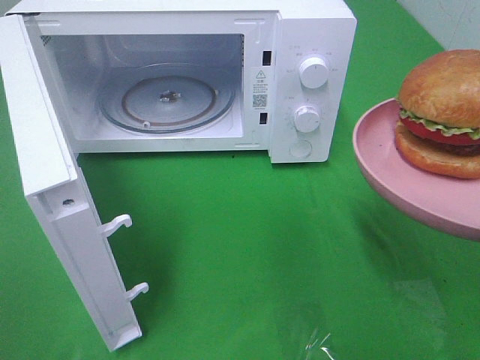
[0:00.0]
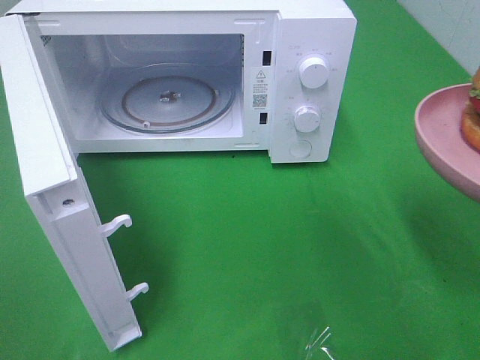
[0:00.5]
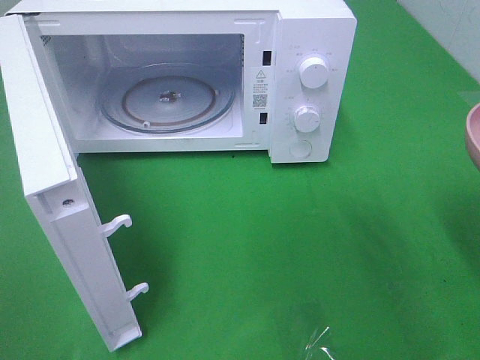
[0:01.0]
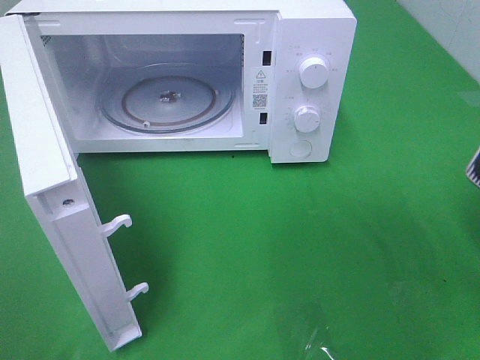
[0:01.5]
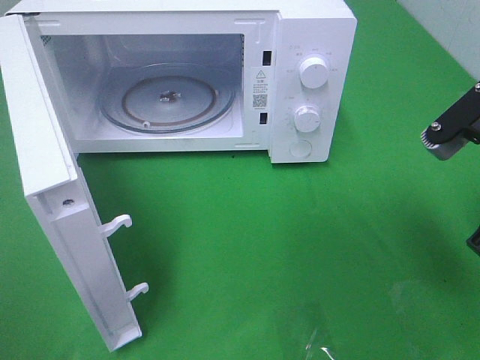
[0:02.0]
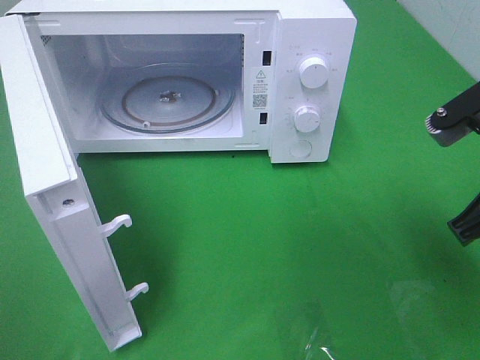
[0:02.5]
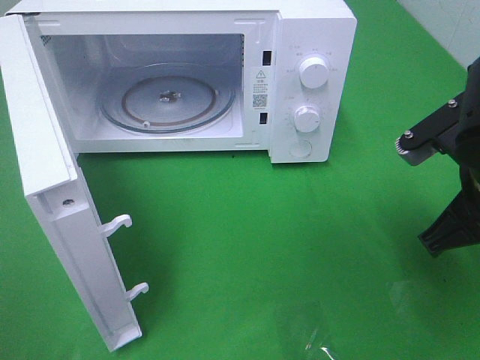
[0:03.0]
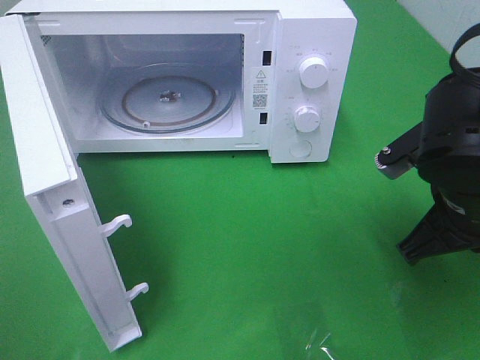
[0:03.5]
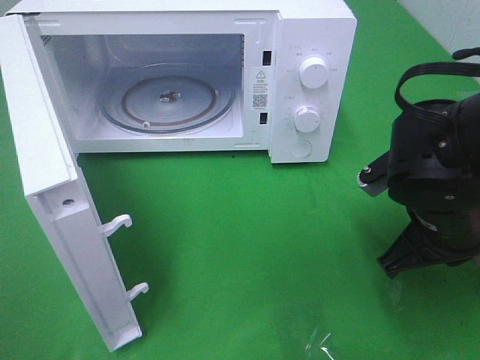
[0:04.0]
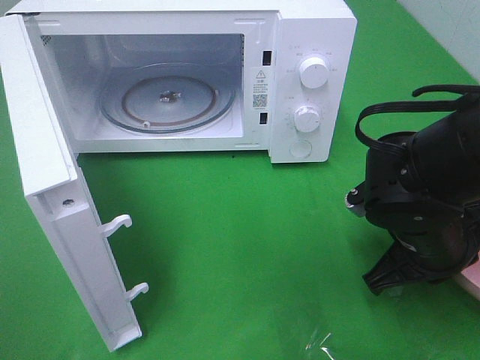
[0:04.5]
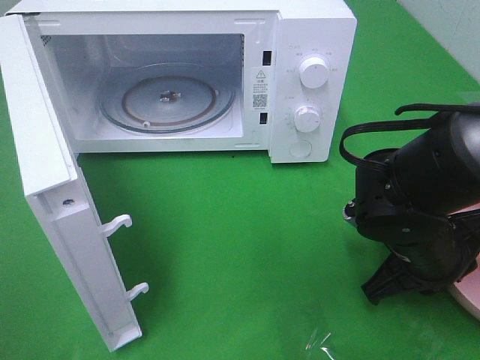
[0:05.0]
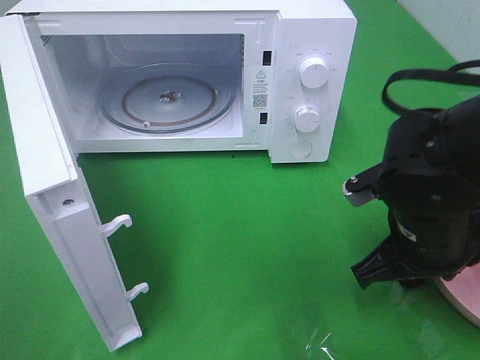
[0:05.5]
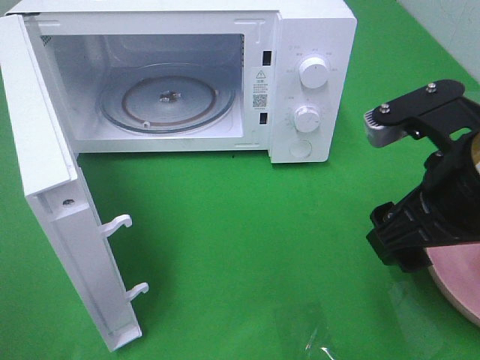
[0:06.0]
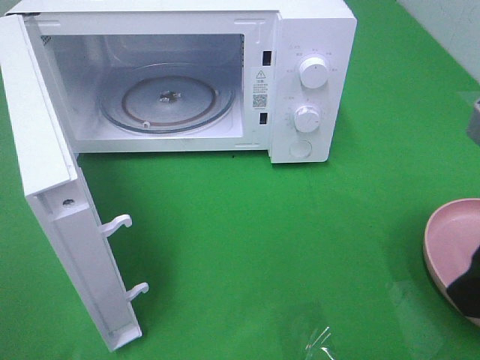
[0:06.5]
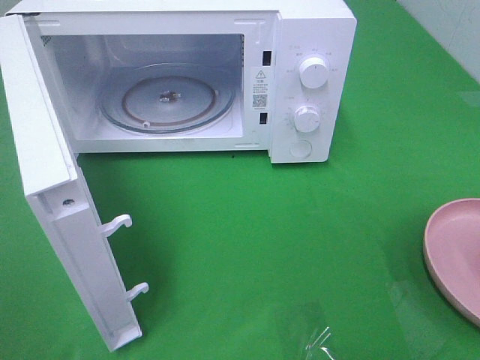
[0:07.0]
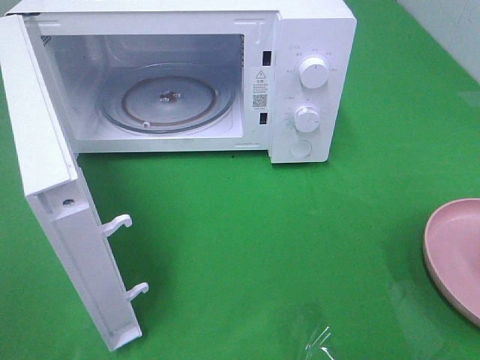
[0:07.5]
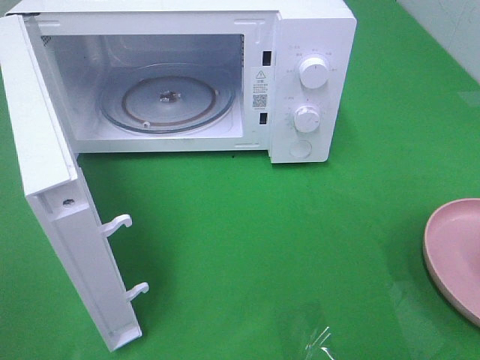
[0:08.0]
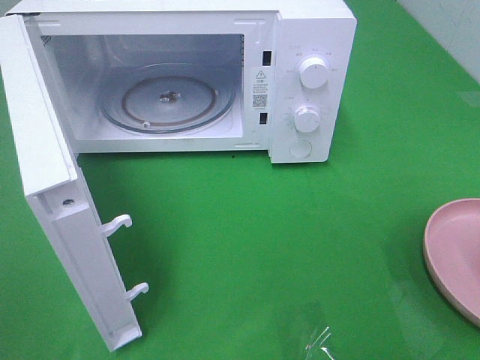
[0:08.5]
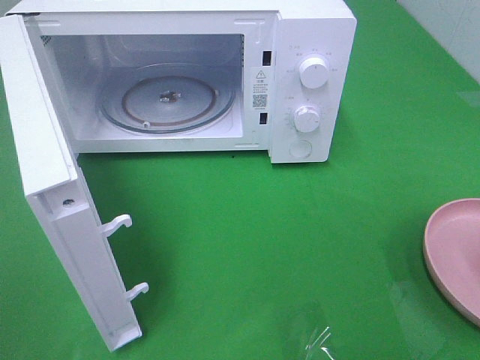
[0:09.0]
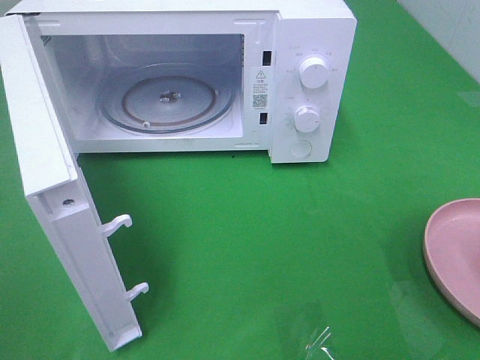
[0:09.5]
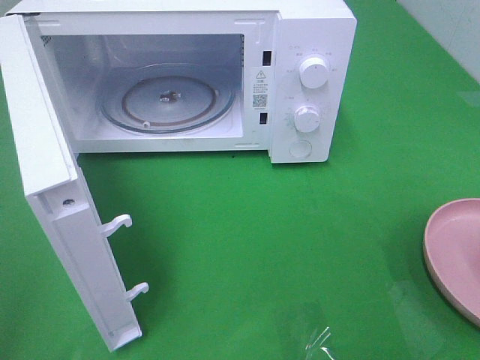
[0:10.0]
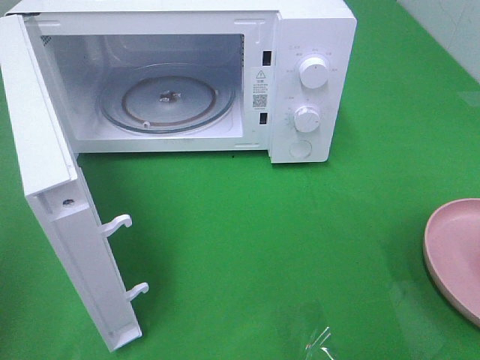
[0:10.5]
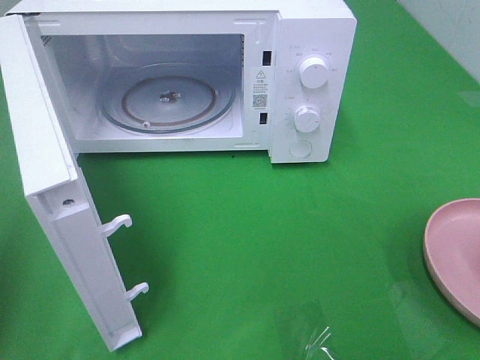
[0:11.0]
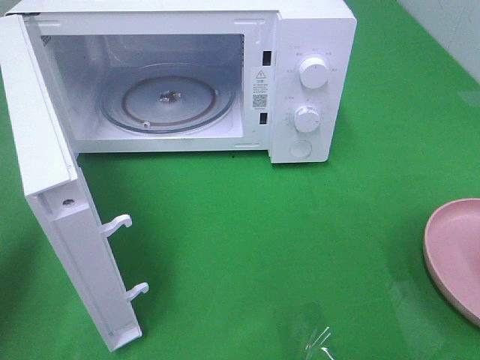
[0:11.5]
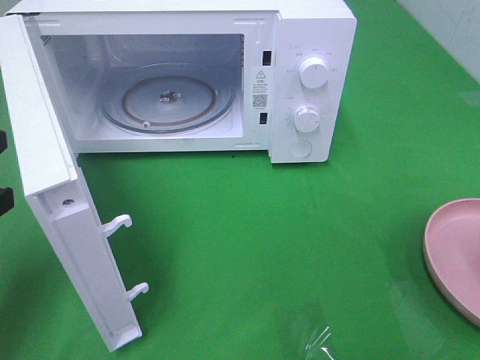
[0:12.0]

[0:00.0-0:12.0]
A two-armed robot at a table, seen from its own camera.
Task of the whole recording: Heat the burger.
Step, 0:00.0 to 0:06.0: Right hand: place the plate on the table.
0:00.0 to 0:02.0: The right gripper heads forward, covering roughly 10 cm.
0:02.0 to 0:04.0: The right gripper moves downward, roughly 10 cm.
0:04.0 to 0:06.0: The right gripper goes about 10 cm upward, and opens its fingers.
0:06.0 to 0:08.0: The right gripper shifts about 20 cm backward and to the right.
0:10.0 to 0:12.0: The left gripper travels forward and downward by approximately 20 cm, and closes.

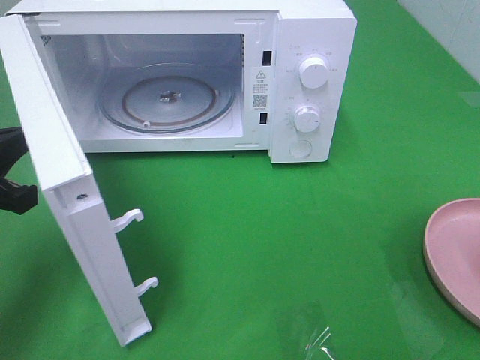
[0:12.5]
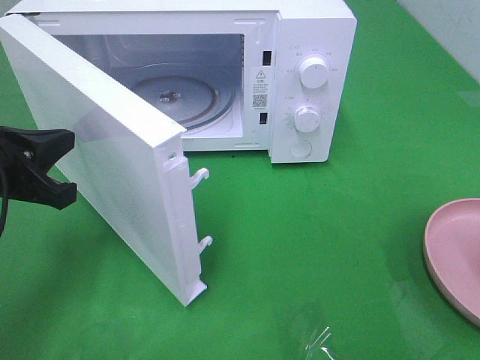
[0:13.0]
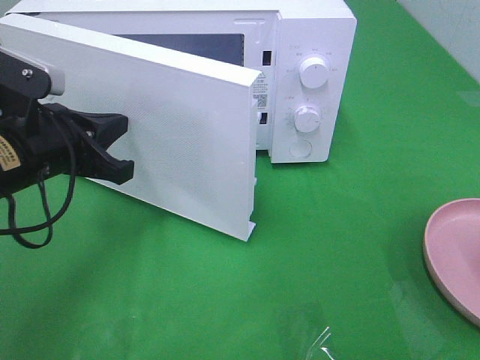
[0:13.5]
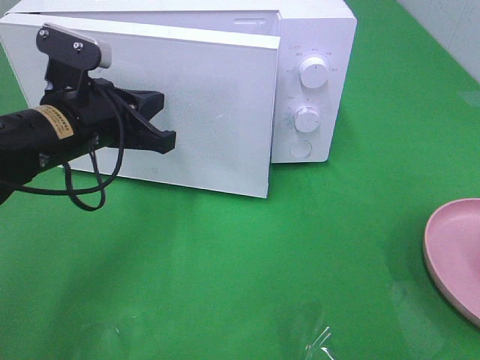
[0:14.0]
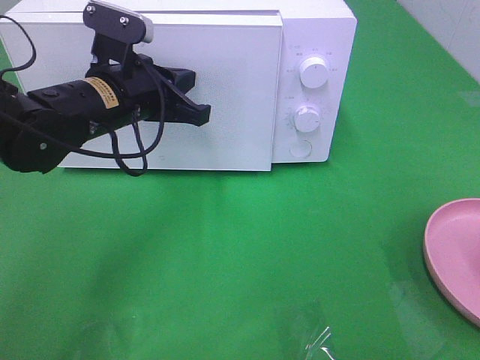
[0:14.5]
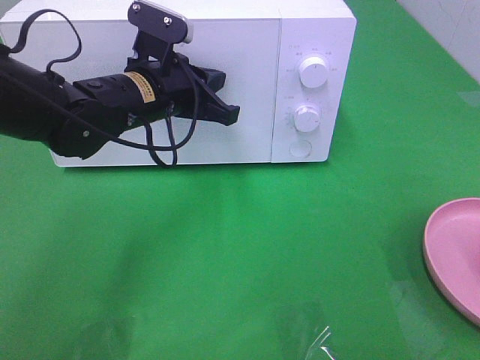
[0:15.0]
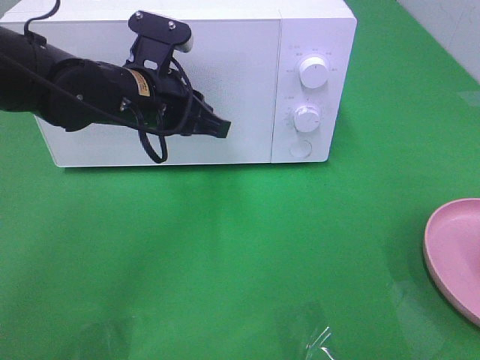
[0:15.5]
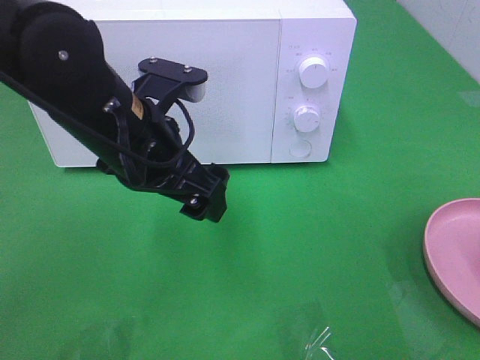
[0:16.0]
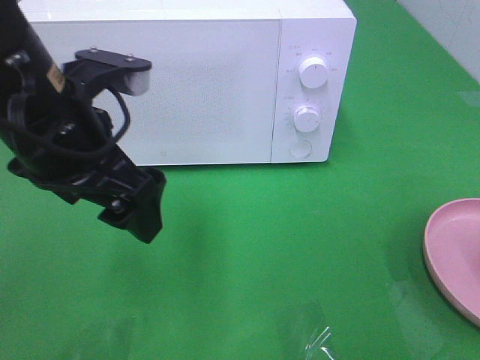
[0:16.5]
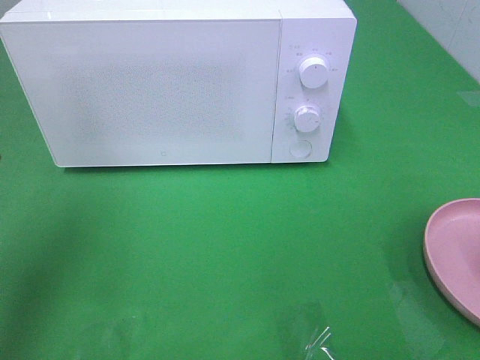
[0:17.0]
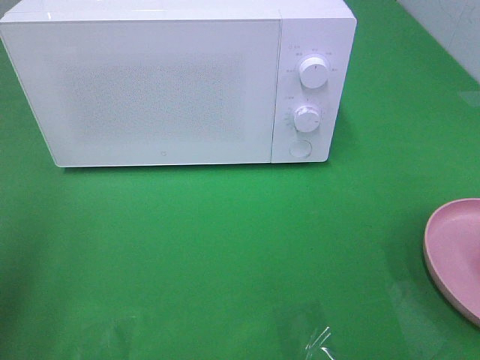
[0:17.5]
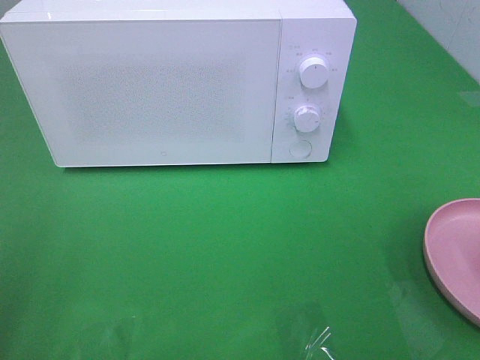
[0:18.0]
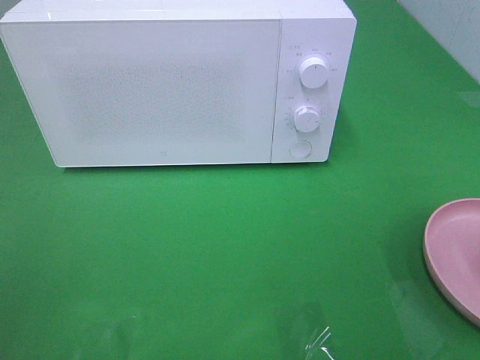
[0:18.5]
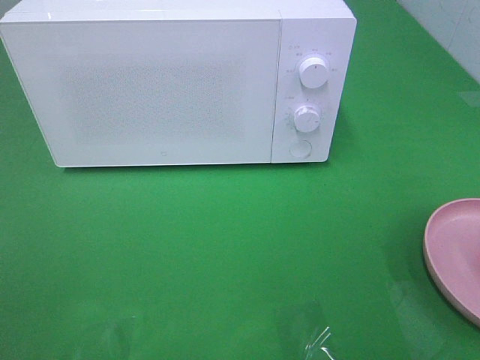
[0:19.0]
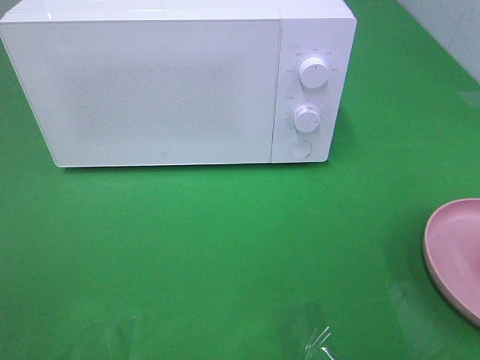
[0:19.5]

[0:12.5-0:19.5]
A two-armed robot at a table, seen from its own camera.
Task of the whole recording: Heat the burger.
Step, 0:12.5 to 0:15.5: Left hand: close the microwave door.
0:12.5 to 0:14.5: The left gripper moves to the right and forward, roughly 20 cm.
0:14.5 to 0:16.0: The left gripper heads backward, covering roughly 10 cm, and opens.
0:16.0 to 0:17.5: The left gripper is displaced to the left and backward by approximately 25 cm.

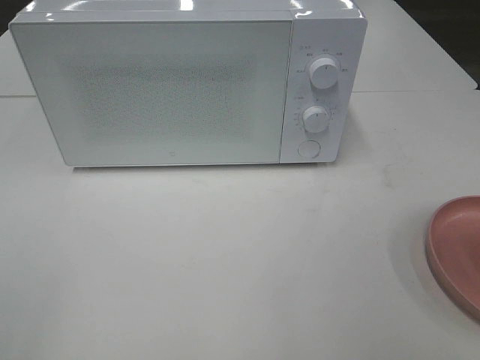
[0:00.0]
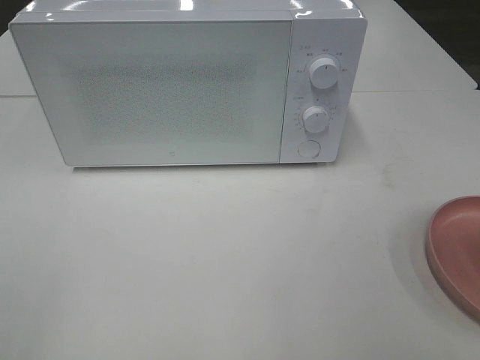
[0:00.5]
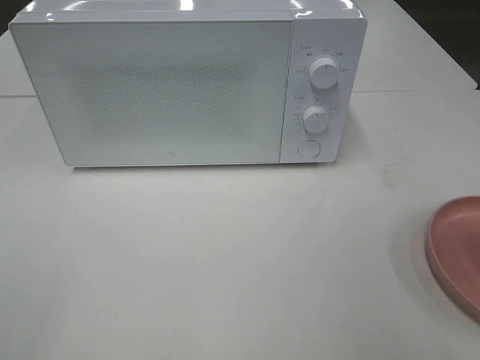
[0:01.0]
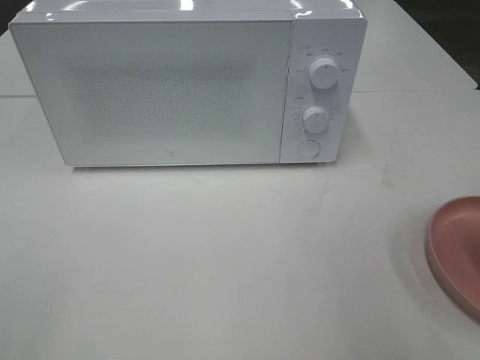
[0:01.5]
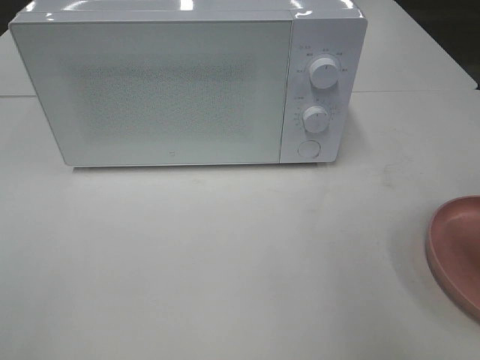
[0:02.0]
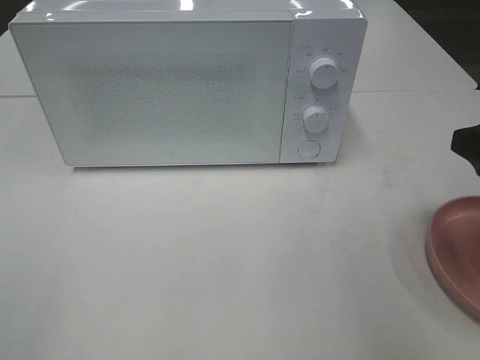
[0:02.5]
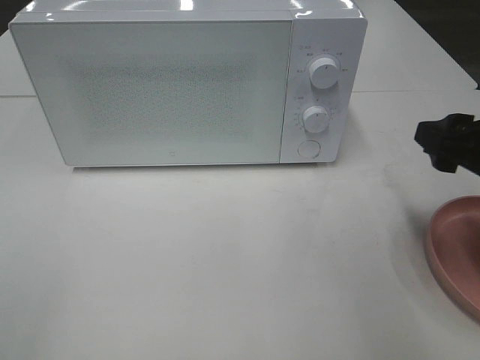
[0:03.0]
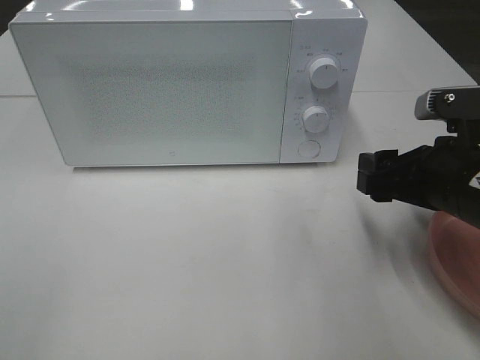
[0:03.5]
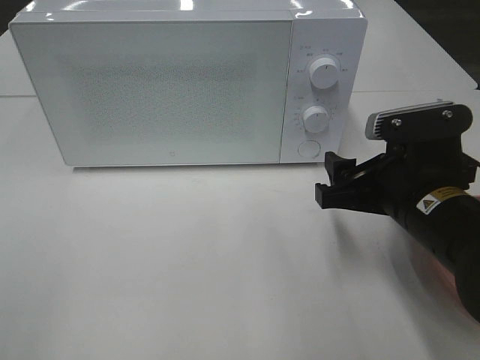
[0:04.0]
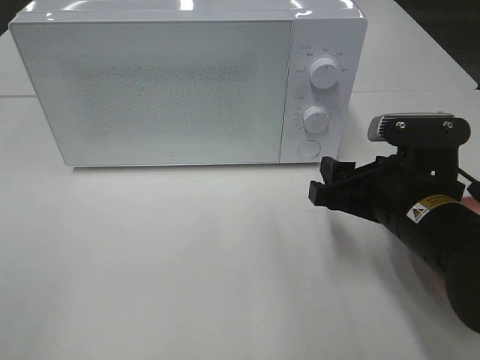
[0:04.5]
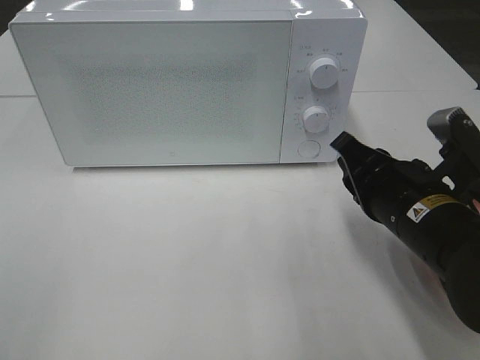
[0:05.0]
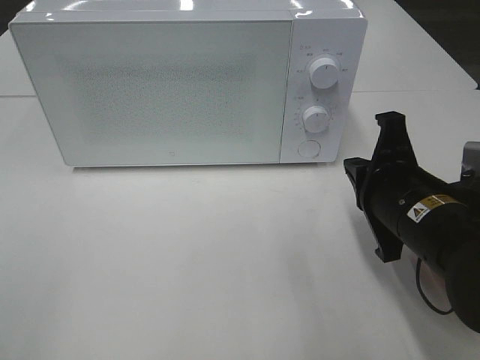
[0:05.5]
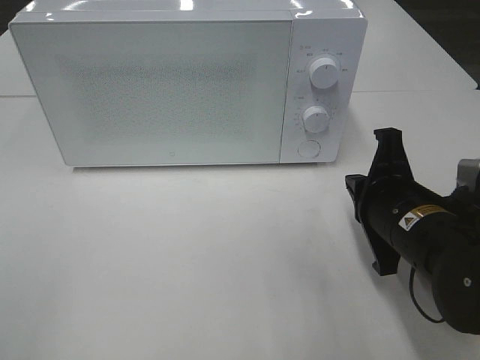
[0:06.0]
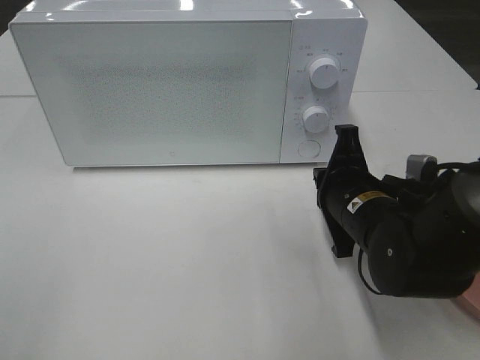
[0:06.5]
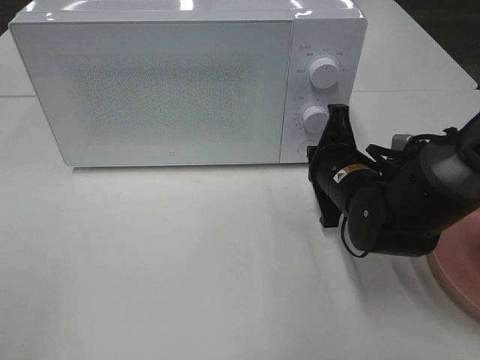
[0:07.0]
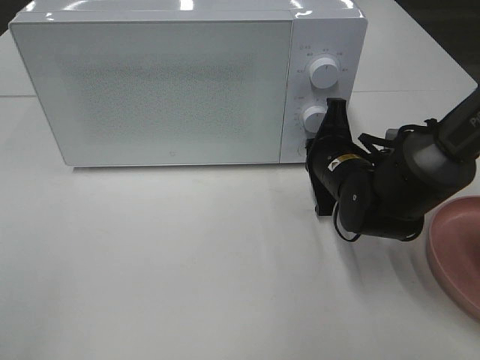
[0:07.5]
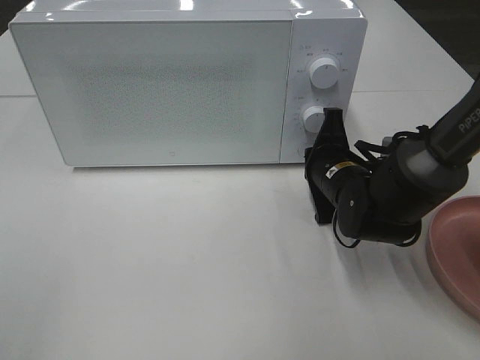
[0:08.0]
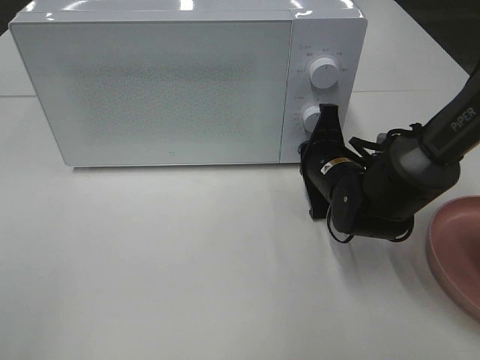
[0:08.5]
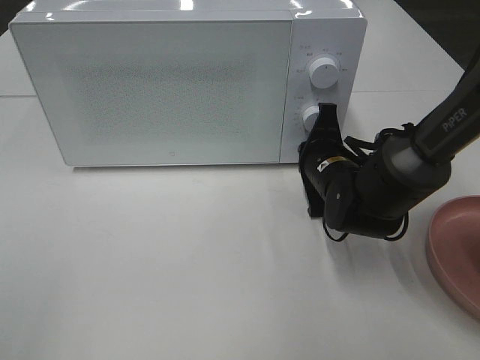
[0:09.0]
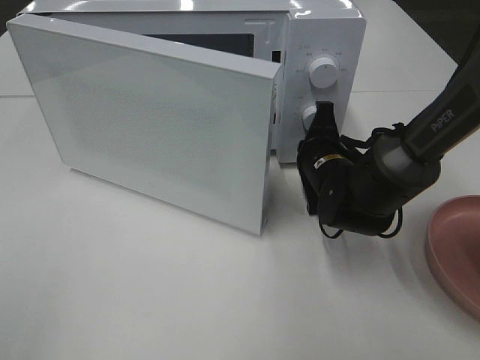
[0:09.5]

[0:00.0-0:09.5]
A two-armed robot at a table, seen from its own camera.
Task of the whole recording: Heat the burger.
0:02.0 to 0:04.0: The right gripper moves downward, to the left and forward, roughly 20 cm.
0:04.0 to 0:05.5: The right gripper closes up.
0:05.5 to 0:07.5: The right gripper moves forward and downward, roughly 15 cm.
0:07.5 to 0:09.5: The grippers make only small movements.
